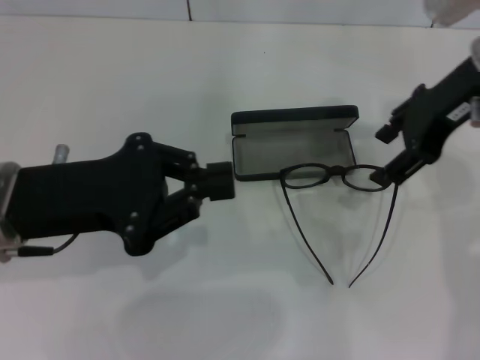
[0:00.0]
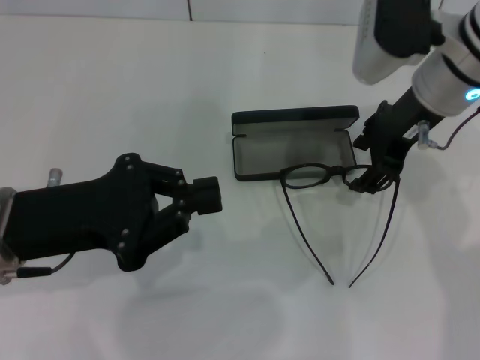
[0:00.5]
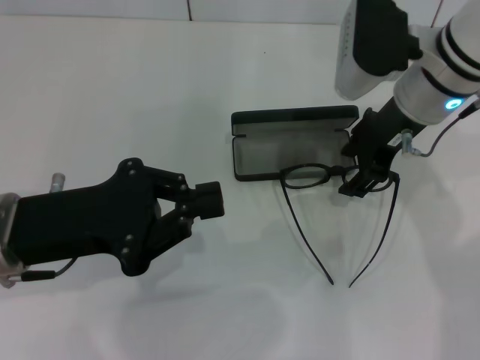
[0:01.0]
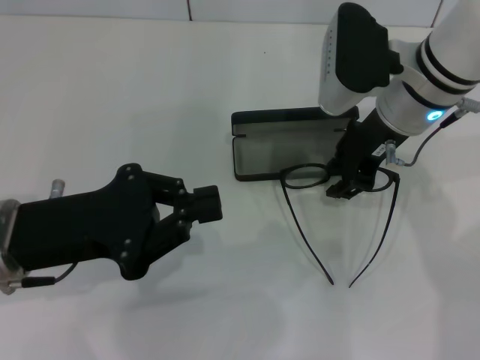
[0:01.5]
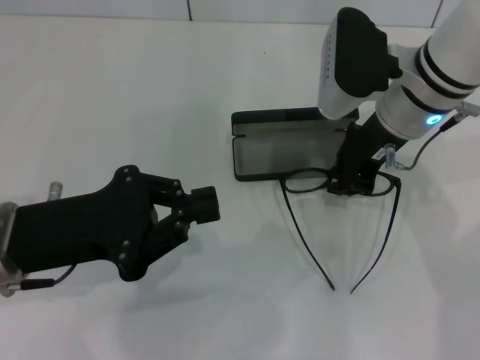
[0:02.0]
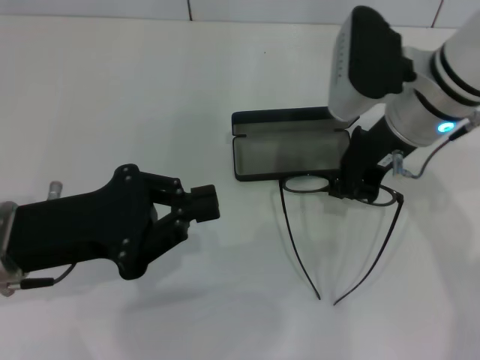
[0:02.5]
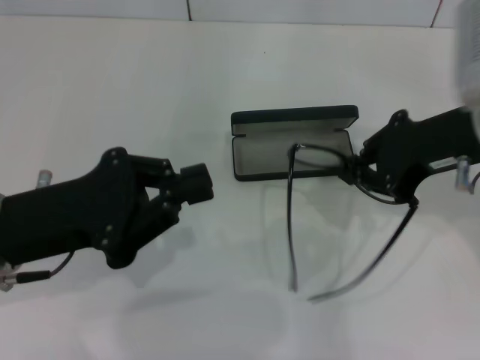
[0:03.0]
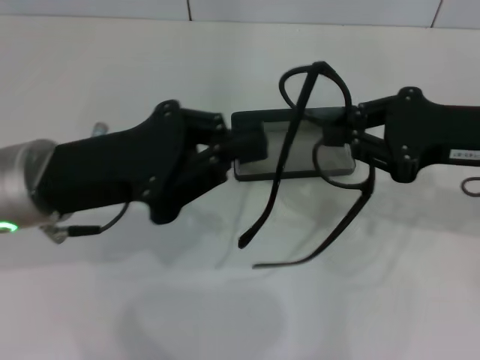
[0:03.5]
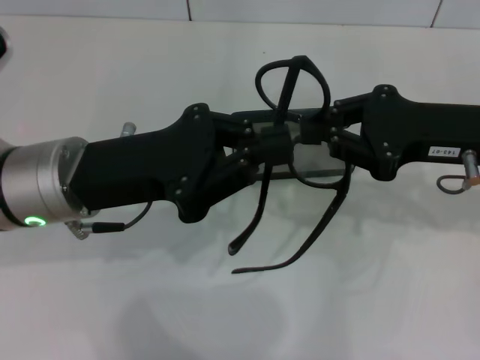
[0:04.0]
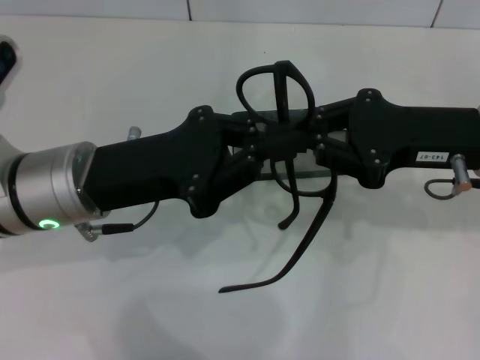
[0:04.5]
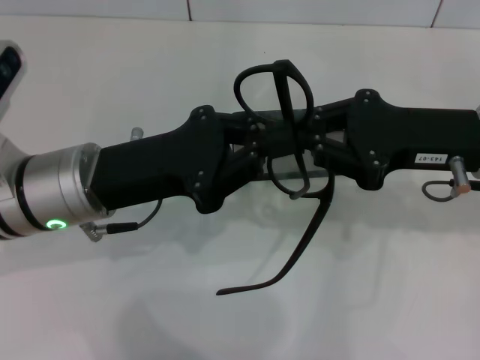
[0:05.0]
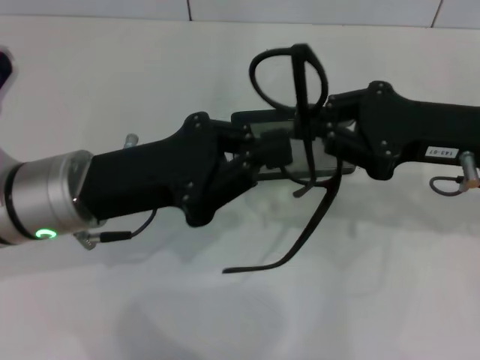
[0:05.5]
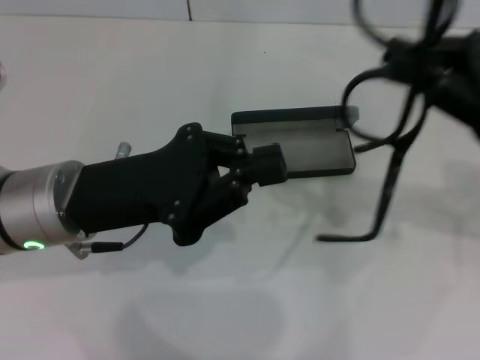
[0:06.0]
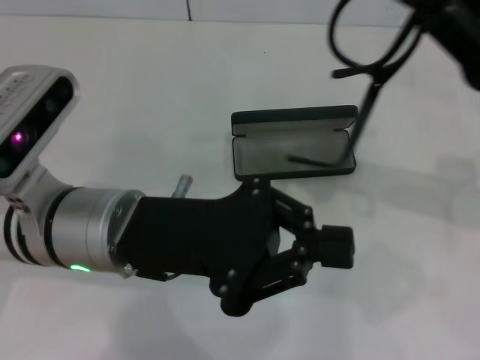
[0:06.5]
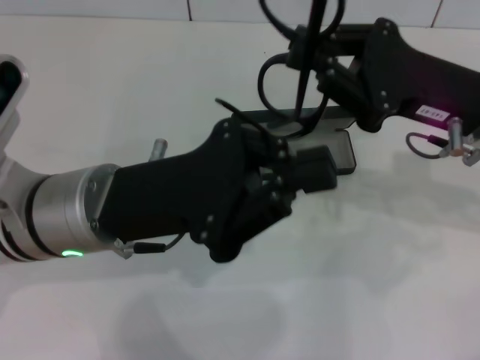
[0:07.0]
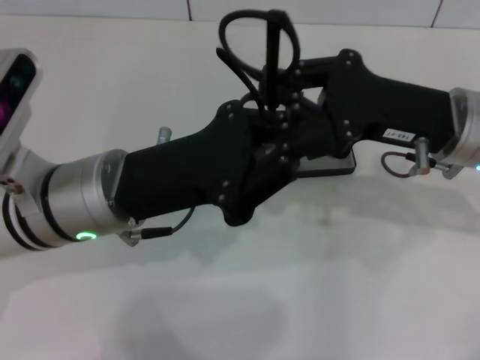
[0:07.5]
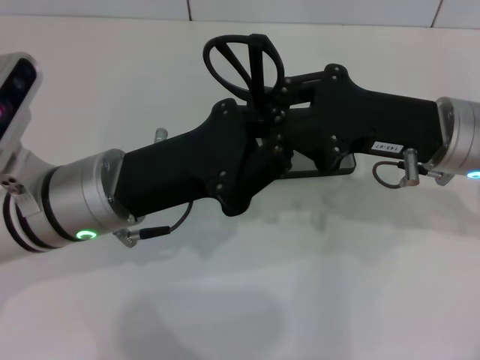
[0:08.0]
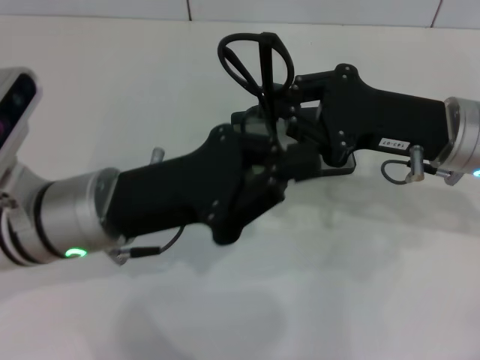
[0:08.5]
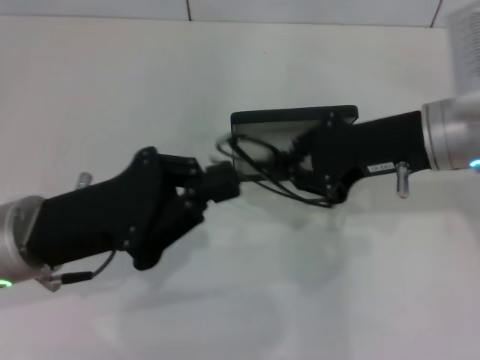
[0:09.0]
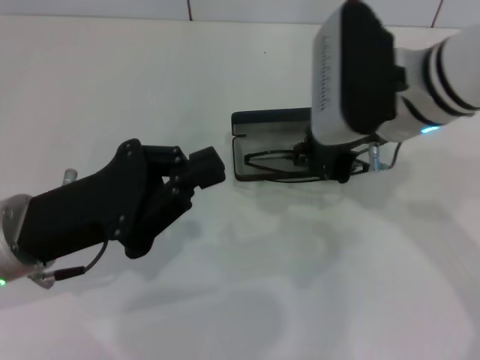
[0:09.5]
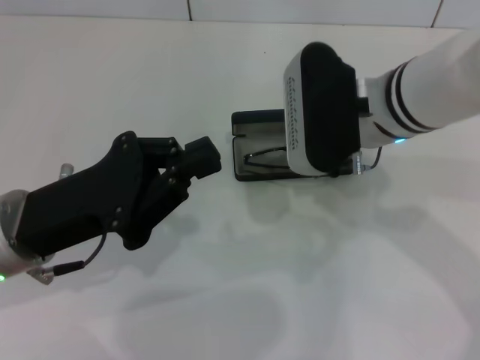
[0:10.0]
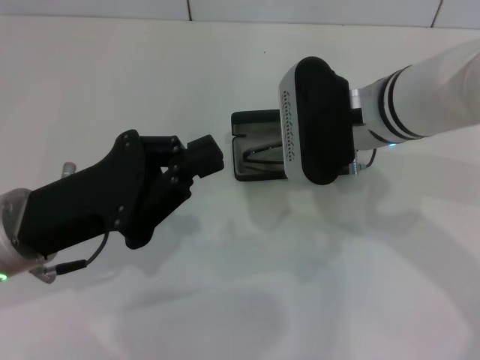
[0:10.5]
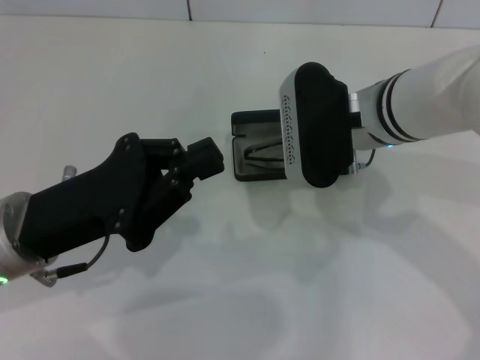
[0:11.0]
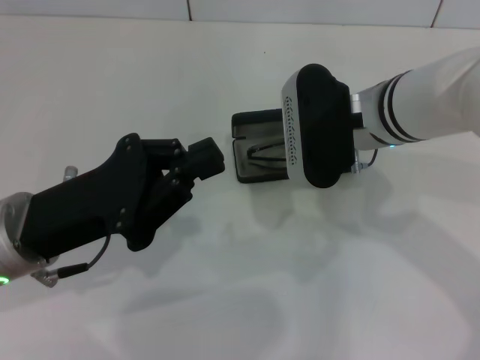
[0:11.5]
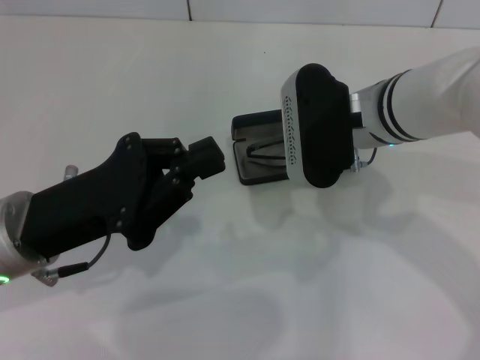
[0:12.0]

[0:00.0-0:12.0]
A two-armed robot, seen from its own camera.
Step, 0:00.0 to 0:02.0: Grab the eyeglass frame with your right hand.
Step, 0:02.5 to 0:08.0: Fold the frame with your left hand.
0:00.0 to 0:02.0: The right gripper shifts about 10 cm downward and to the left, and closes its fingers.
0:02.0 to 0:04.0: The left gripper is displaced to the right by about 5 cm. Meanwhile the right gripper goes roughly 10 cm to the right and backward.
0:04.0 to 0:06.0: The right gripper moves some 5 cm.
0:06.0 to 0:08.0: The right gripper travels to the left by approximately 10 cm.
0:08.0 to 0:10.0: The grippers both shift to the left by roughly 5 cm.
0:10.0 to 0:12.0: The grippers move only a little.

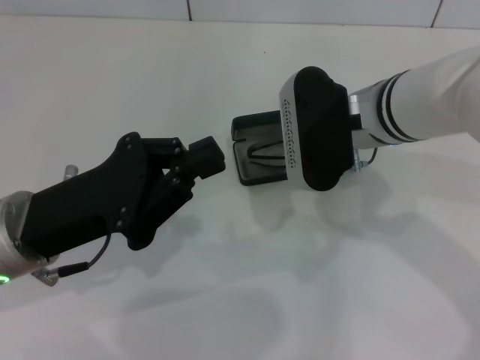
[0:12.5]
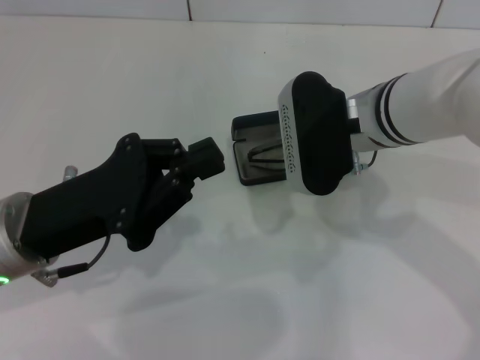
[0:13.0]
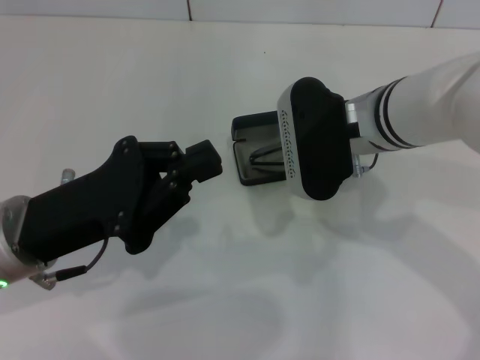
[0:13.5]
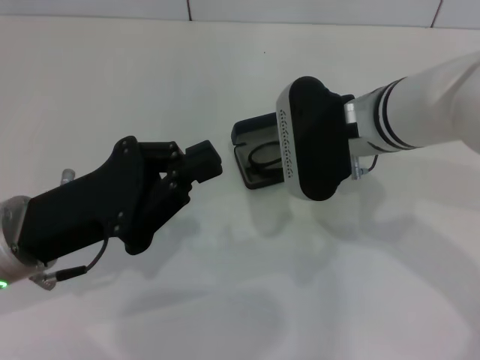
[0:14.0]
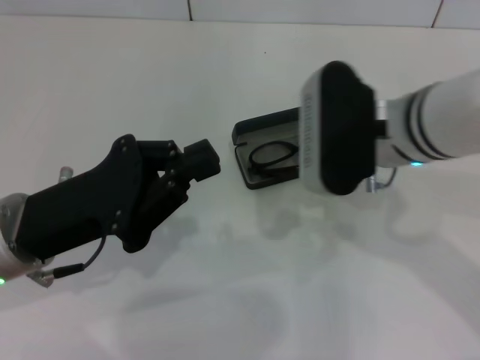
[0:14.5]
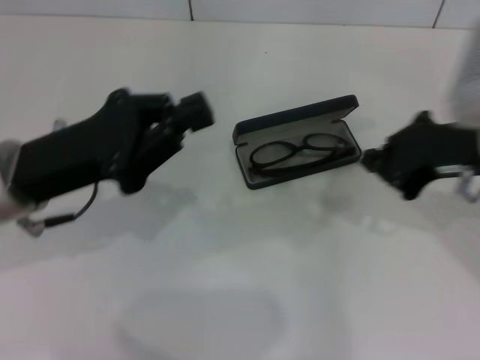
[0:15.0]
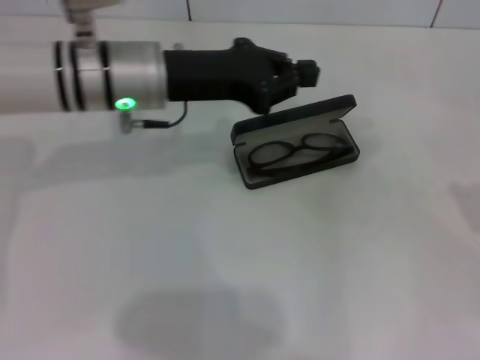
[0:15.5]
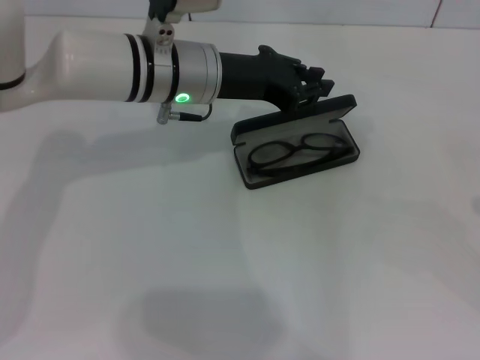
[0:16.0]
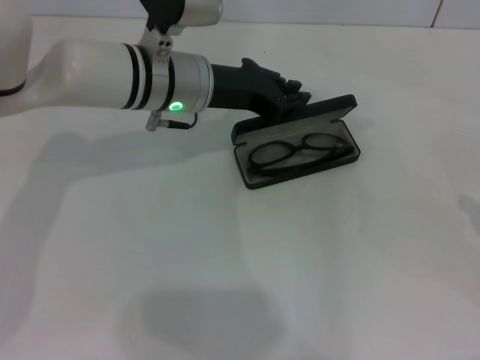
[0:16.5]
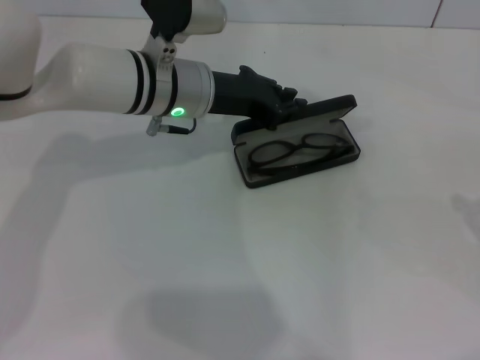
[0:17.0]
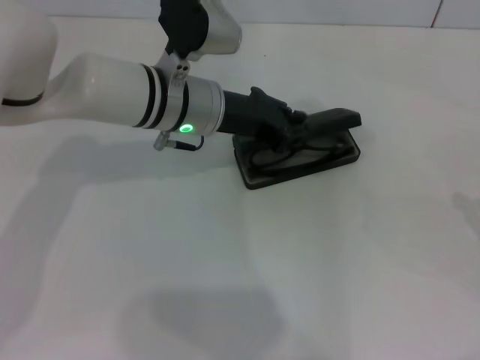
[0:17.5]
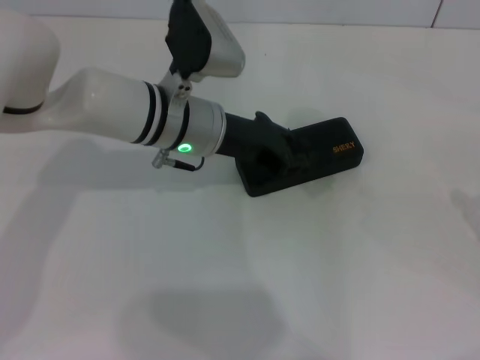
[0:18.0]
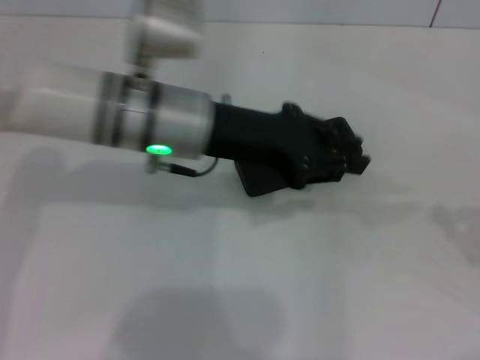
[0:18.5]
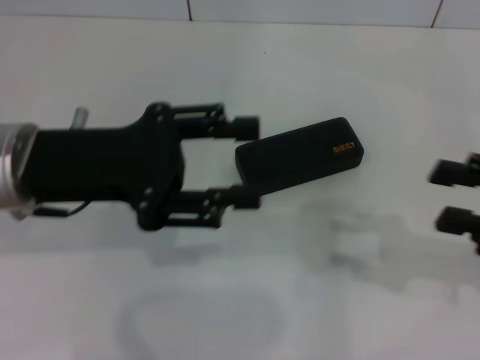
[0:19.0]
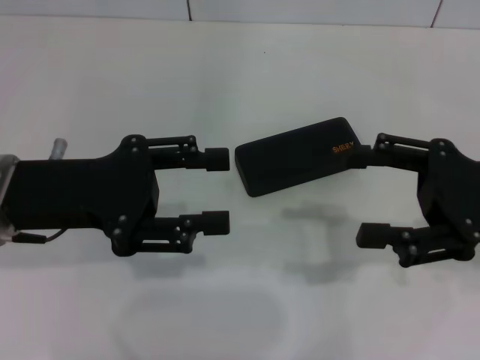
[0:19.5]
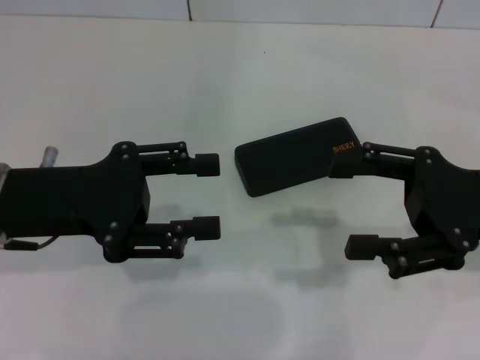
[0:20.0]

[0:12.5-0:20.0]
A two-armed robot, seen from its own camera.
Step, 0:14.0 to 0:17.5: Close the glasses case with your left hand.
0:12.5 to 0:14.5: The grippers stay close to where they were, moving slightly.
0:14.5 to 0:16.5: The right gripper is displaced to the right by approximately 30 cm, and closes up; the left gripper goes some 20 cm forward and to the right.
0:16.5 to 0:18.0: The grippers stay close to where they were, moving slightly.
0:18.0 to 0:20.0: The left gripper shifts approximately 20 cm to the left and backward, and opens its fingers, while the right gripper shifts some 15 cm to the left, and opens up.
